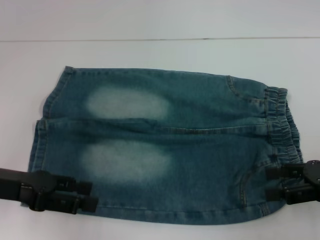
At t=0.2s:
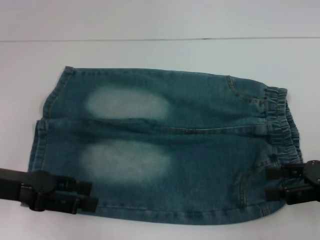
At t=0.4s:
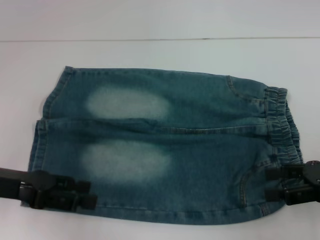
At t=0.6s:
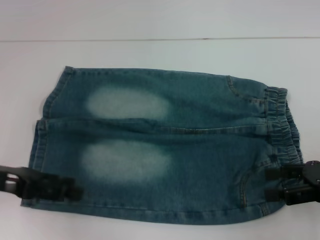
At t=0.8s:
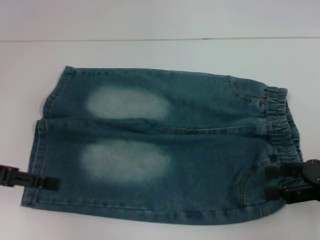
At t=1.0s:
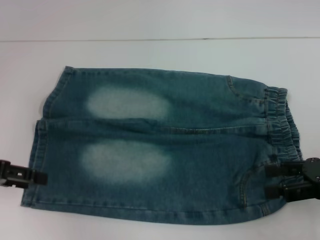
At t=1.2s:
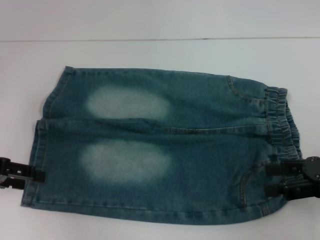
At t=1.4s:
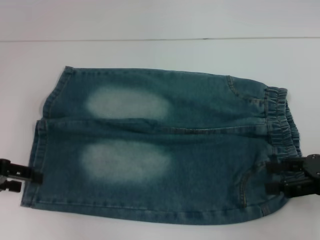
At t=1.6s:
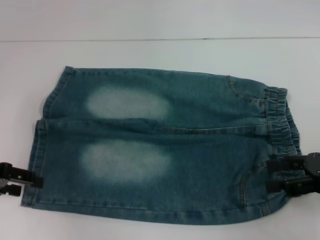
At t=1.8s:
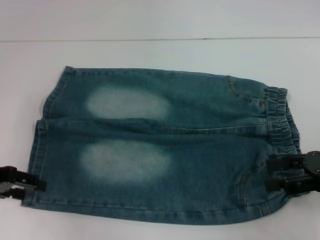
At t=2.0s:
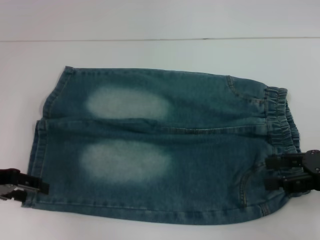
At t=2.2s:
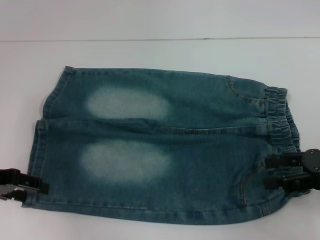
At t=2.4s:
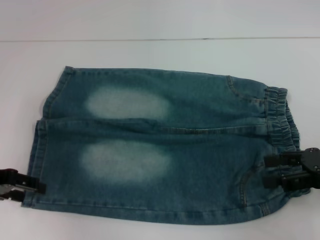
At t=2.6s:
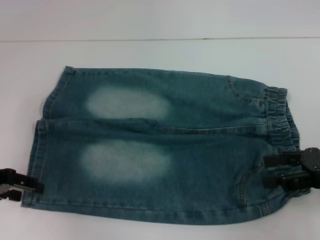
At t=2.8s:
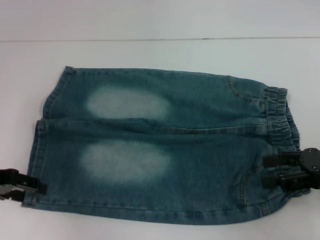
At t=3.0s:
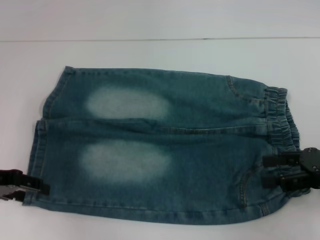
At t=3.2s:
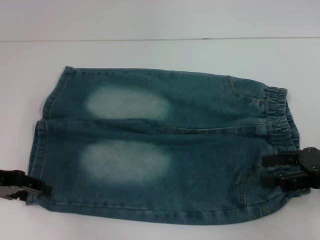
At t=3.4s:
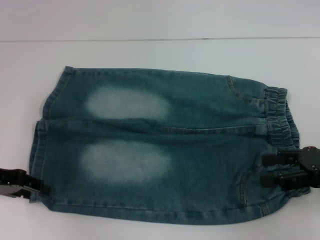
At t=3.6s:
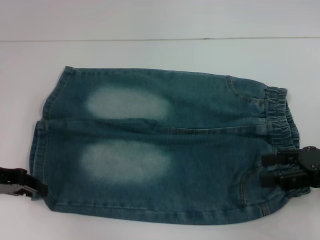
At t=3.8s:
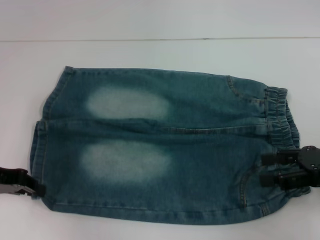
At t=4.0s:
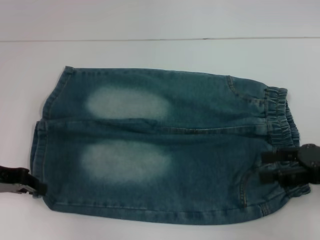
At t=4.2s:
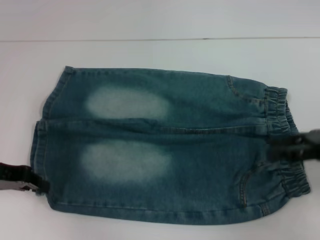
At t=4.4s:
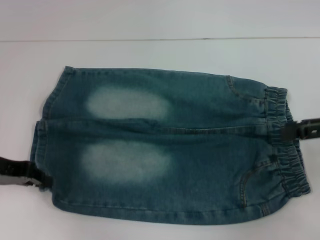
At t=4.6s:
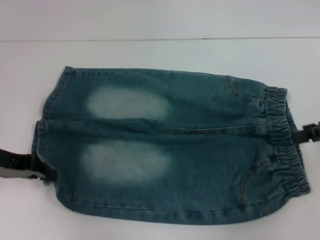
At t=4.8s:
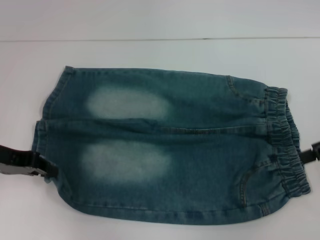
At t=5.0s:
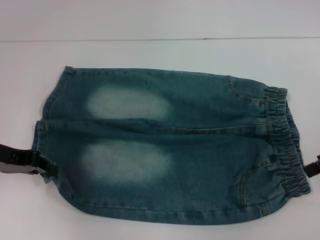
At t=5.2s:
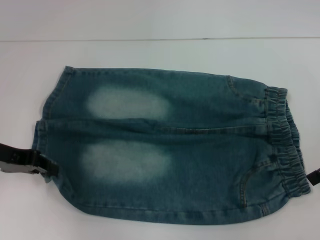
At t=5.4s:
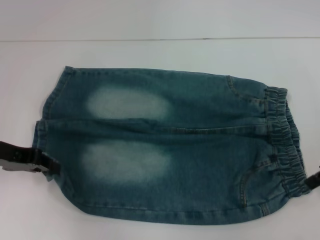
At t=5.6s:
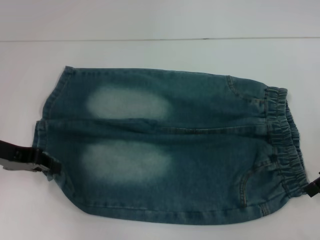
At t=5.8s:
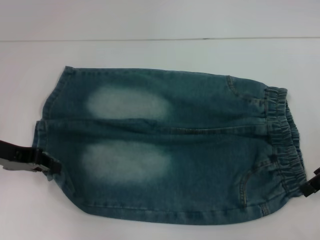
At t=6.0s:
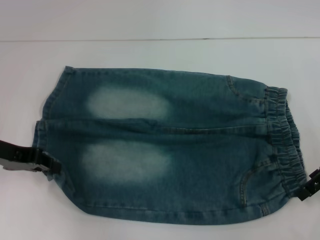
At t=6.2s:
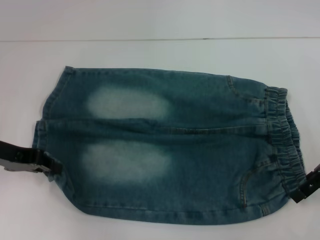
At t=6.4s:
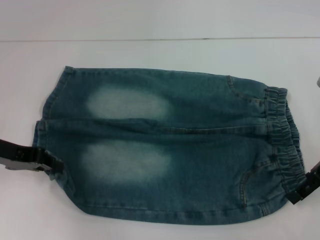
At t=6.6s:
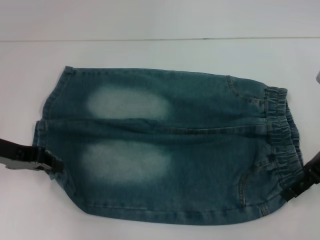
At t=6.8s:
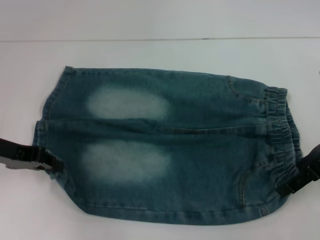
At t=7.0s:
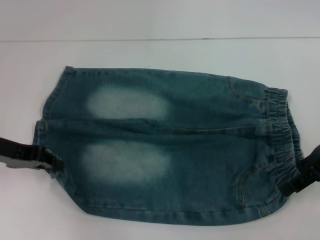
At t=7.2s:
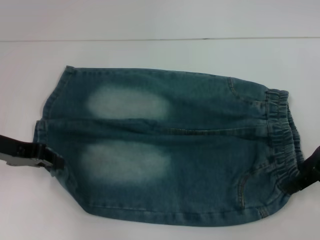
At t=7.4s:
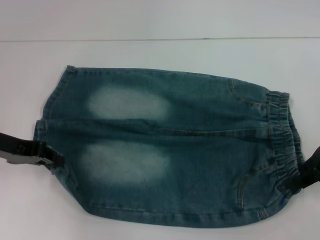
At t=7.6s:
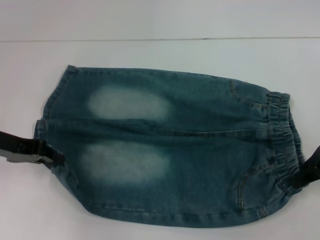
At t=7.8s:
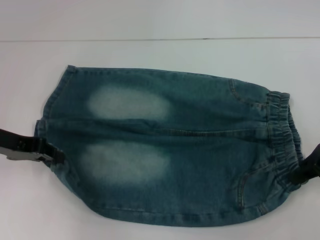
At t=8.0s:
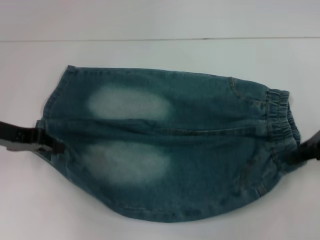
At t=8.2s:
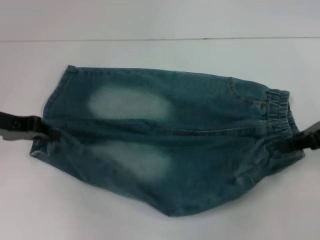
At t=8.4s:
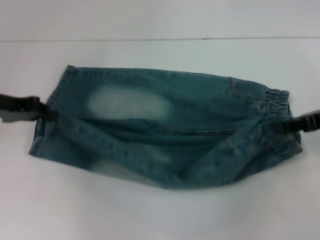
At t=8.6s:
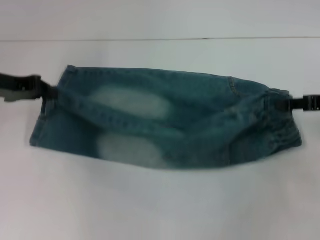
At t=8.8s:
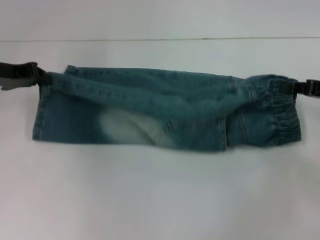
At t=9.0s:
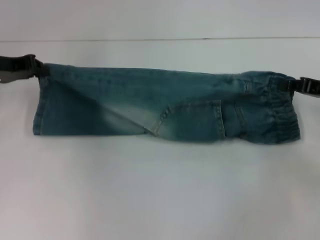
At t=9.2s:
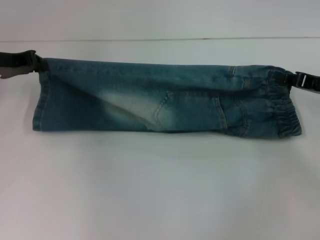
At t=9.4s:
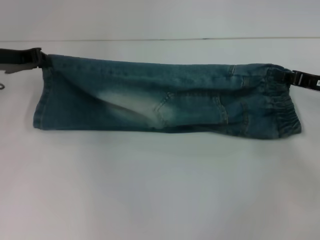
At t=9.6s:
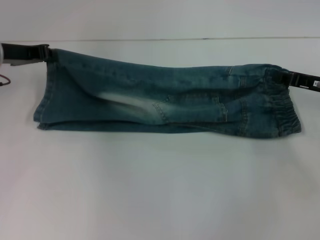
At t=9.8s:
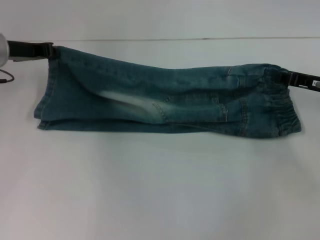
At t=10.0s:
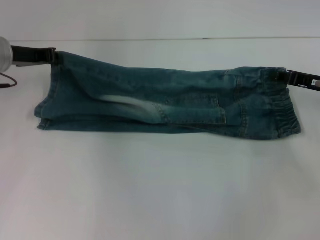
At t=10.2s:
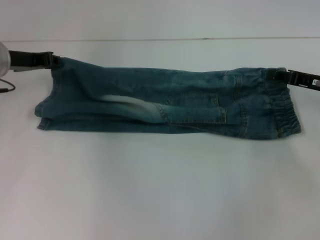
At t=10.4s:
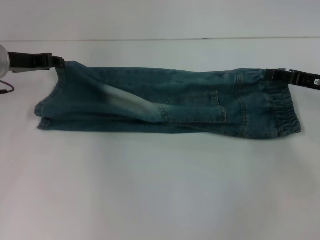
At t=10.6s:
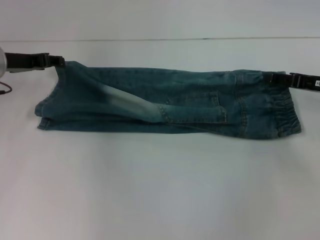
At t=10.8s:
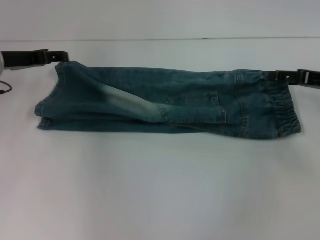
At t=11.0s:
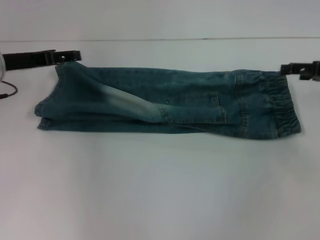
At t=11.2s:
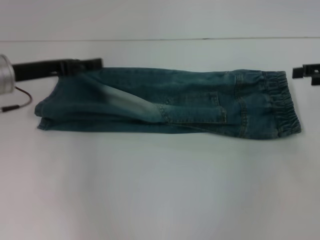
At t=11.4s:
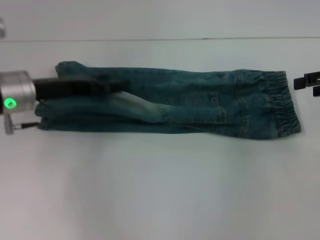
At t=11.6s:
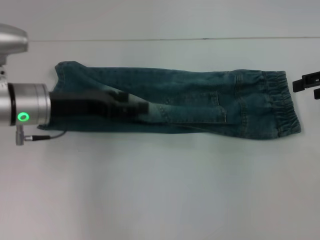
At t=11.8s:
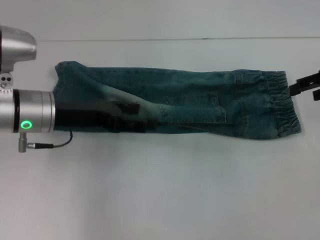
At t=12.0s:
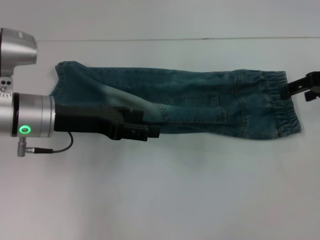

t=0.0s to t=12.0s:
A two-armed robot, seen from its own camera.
Step, t=0.0s to t=3.8s: Grab the lower left pant leg with your left hand.
Step, t=4.0s to t=7.8s: Hold the lower right waistband with your right hand.
Step, t=8.0s to t=11.0s: Fold upward with your right hand.
t=0.0s to t=1.6s: The left gripper goes about 5 cm to the left.
t=1.6s to t=3.0s: The grippers stay close to where they were, moving slightly.
t=3.0s to t=4.4s: The right gripper ends up approximately 5 cm from where it was; the left gripper closes.
t=4.4s to t=6.0s: The right gripper moves roughly 5 cm.
t=6.0s to t=7.6s: The right gripper closes.
t=7.6s to t=9.0s: The left gripper shifts roughly 5 cm forward; the right gripper changes place by about 5 cm, and closes up.
t=9.0s to t=10.4s: There are only small adjustments of the grippers.
t=10.4s to t=12.0s: The right gripper goes about 10 cm upward, and opens. Meanwhile the left gripper moves backward and to the right, some 10 cm, and opens its fingers.

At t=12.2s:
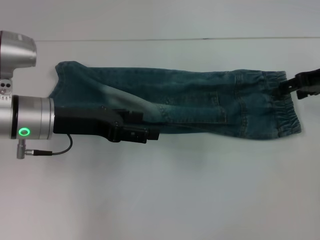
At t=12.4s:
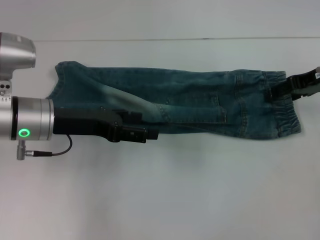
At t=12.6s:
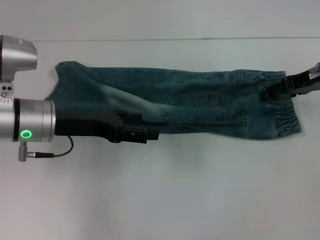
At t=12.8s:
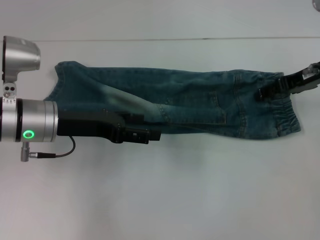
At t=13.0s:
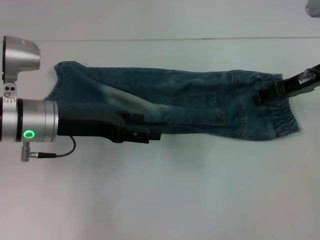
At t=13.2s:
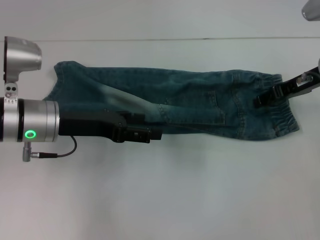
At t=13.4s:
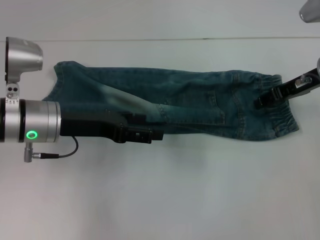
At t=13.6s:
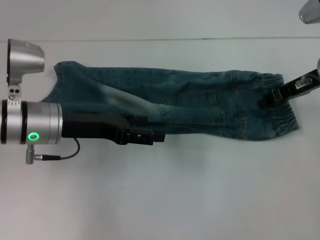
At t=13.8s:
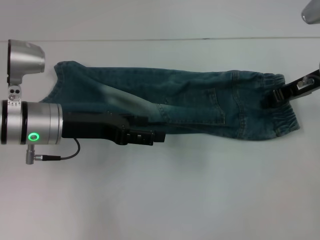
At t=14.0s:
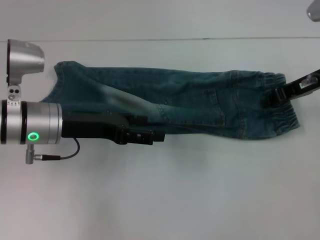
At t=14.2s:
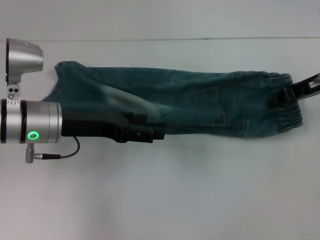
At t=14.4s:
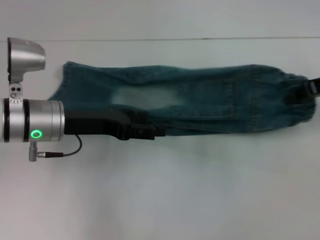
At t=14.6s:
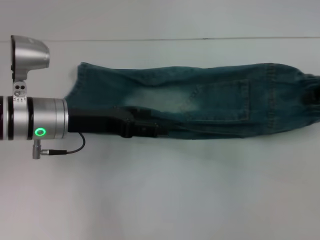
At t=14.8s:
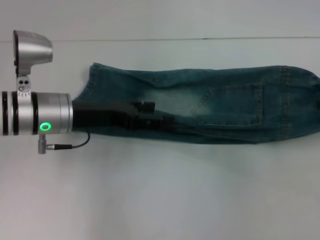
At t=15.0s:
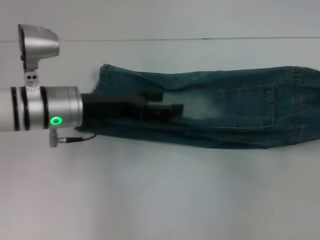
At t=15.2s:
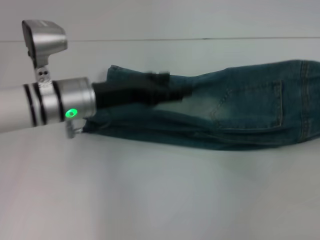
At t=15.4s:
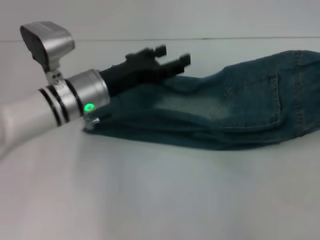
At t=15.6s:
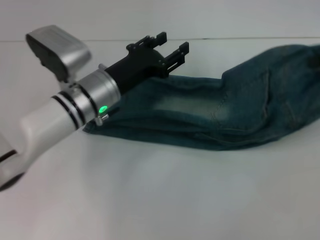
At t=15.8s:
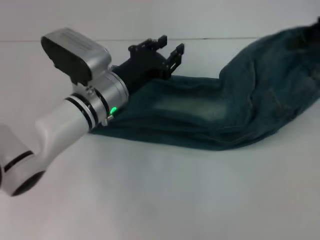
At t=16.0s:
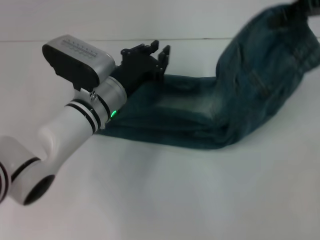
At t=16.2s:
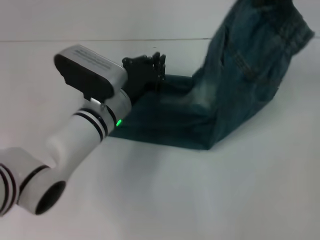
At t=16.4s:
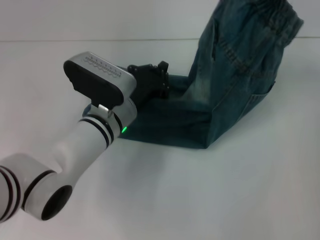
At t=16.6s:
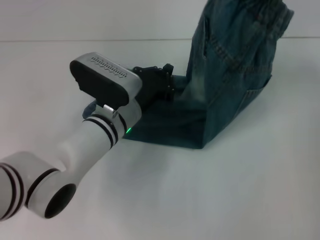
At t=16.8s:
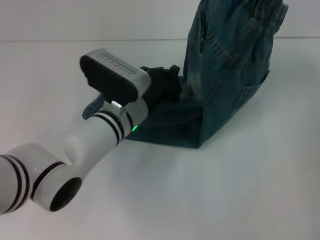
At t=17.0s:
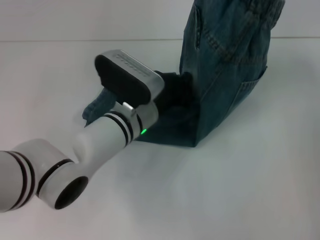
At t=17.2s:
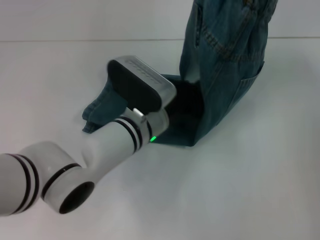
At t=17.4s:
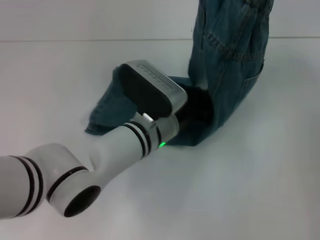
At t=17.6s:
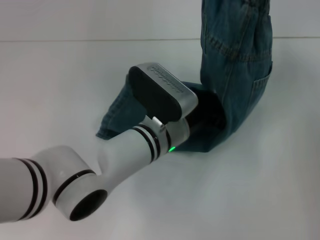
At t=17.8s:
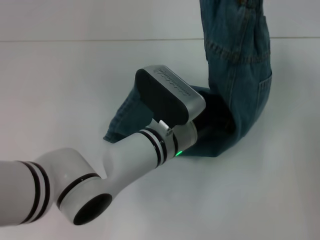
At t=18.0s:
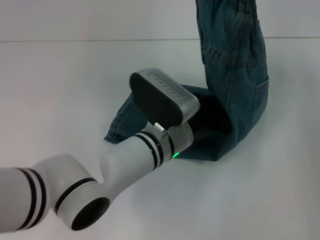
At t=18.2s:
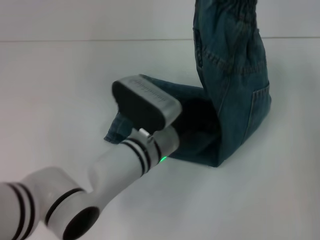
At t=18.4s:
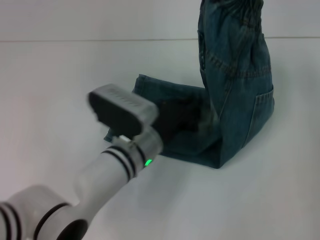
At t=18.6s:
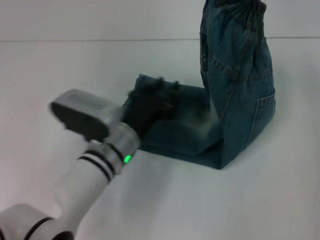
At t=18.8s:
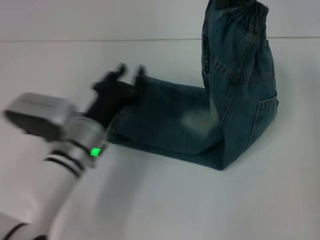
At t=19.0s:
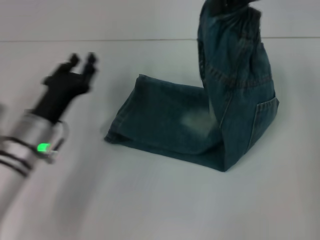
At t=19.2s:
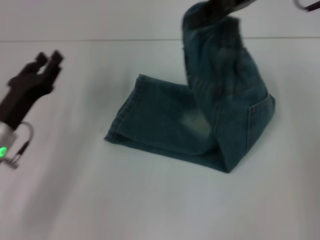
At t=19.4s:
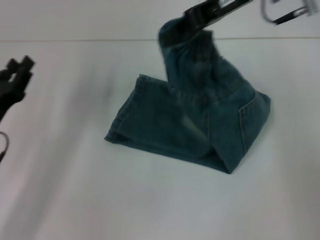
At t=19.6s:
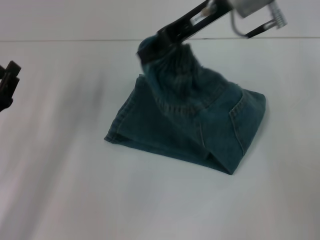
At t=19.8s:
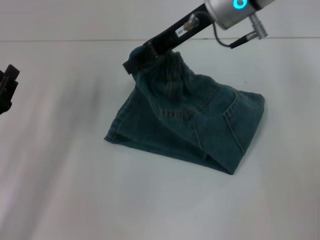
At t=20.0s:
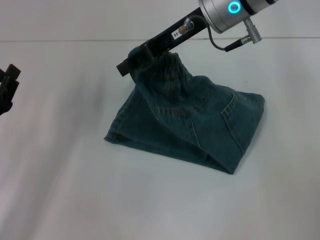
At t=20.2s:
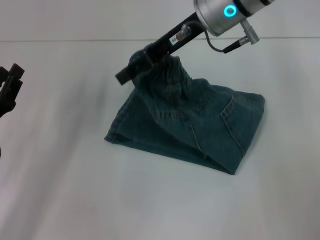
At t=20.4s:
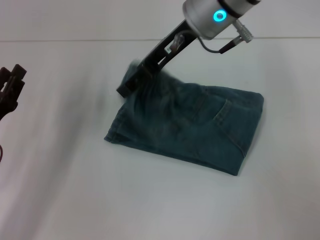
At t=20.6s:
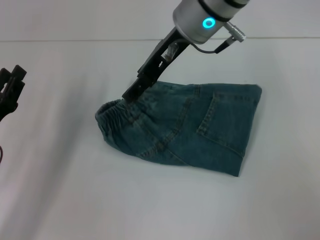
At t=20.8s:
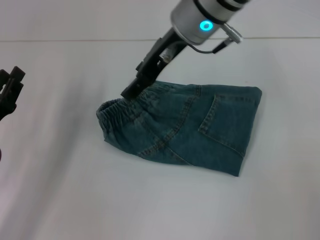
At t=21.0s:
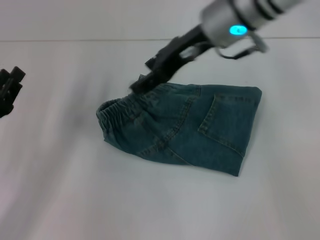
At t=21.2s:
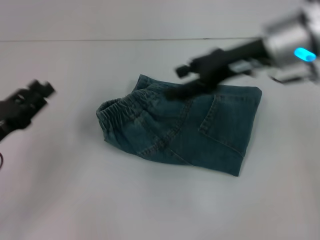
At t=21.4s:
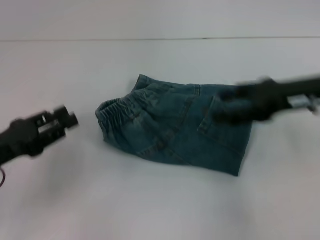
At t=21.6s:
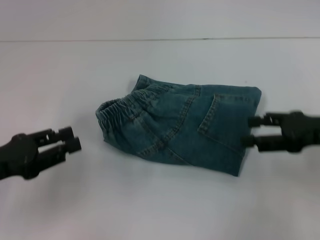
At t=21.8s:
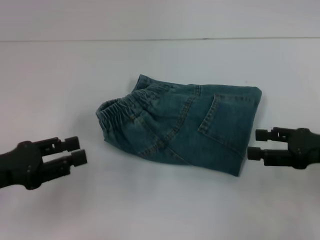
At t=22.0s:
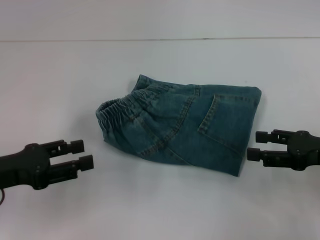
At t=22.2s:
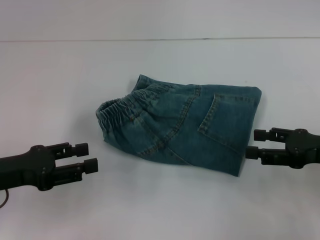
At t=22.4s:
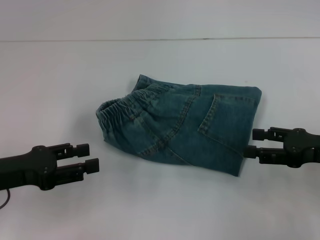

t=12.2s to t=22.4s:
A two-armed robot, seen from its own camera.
Step, t=12.2s to t=14.2s: Grab the waistband with your right hand.
Step, t=14.4s to t=18.2s: Press the middle of the pants with your left hand.
Step, t=18.4s to t=20.8s: Fold to the left with your right hand.
t=12.2s to t=13.6s: The right gripper closes.
t=13.6s to t=15.2s: The left gripper moves roughly 5 cm. The right gripper heads to the right, upward and backward, covering some 15 cm, and closes up.
t=15.2s to t=16.6s: The right gripper is displaced to the left, upward and forward by approximately 20 cm. Meanwhile the left gripper heads to the right and downward, covering about 10 cm, and closes.
t=16.6s to t=18.0s: The left gripper shifts roughly 5 cm to the right.
t=18.0s to t=19.4s: The right gripper heads to the left and downward, covering approximately 10 cm. The left gripper heads to the left, covering about 25 cm, and opens its fingers.
t=19.4s to t=21.0s: The right gripper opens its fingers.
t=21.0s to t=22.4s: The right gripper heads to the right, downward and backward, covering approximately 30 cm.
